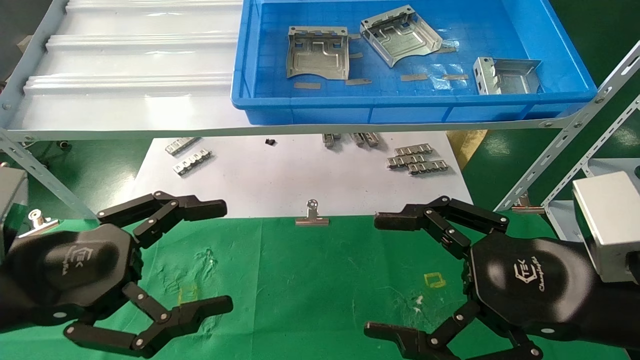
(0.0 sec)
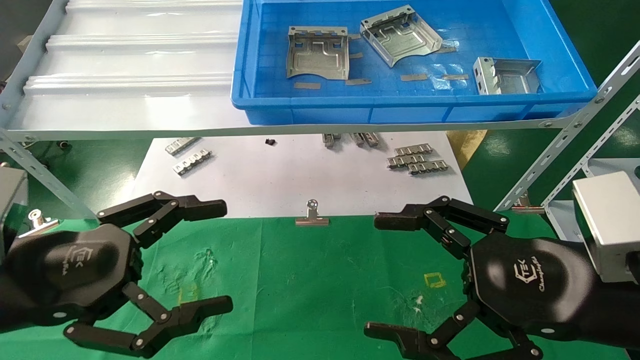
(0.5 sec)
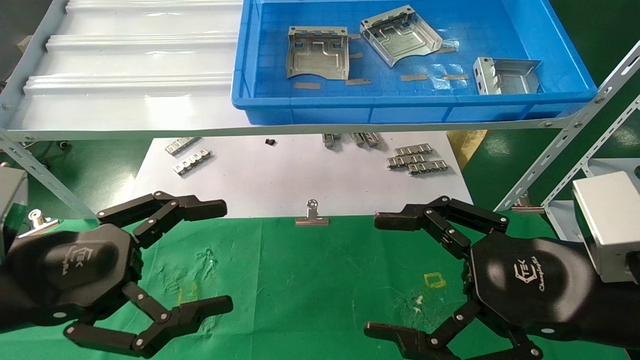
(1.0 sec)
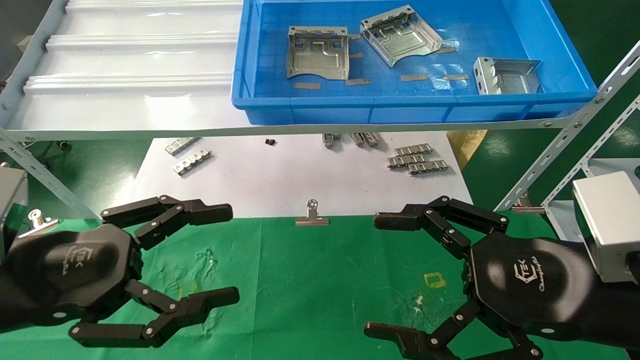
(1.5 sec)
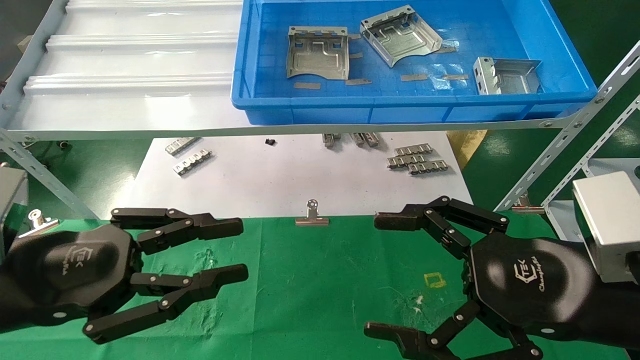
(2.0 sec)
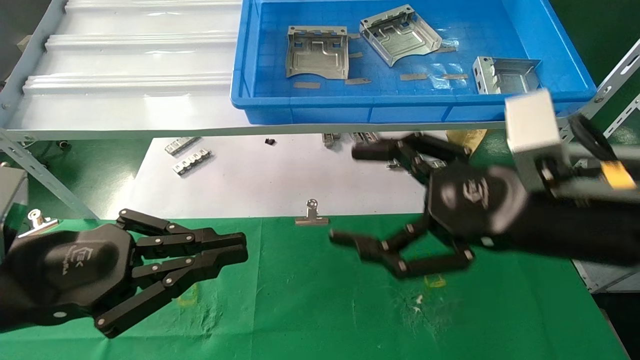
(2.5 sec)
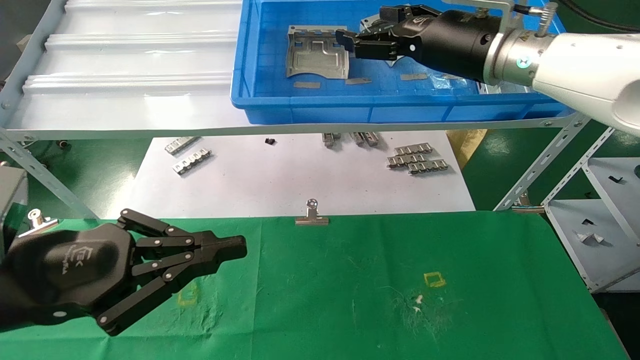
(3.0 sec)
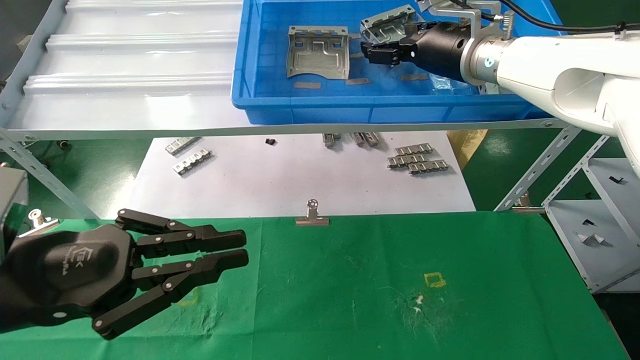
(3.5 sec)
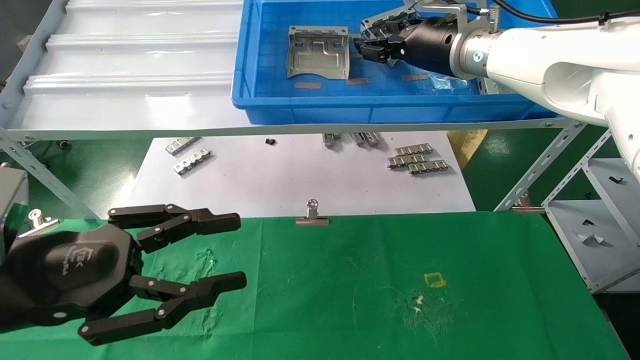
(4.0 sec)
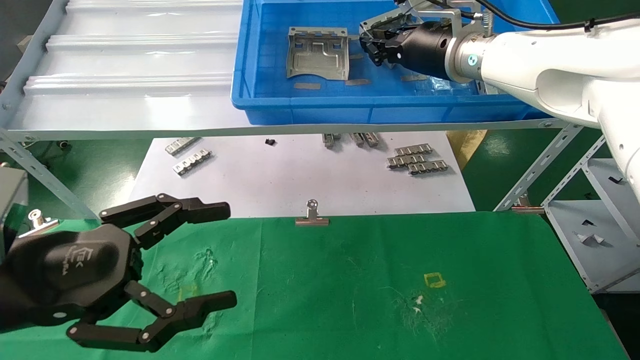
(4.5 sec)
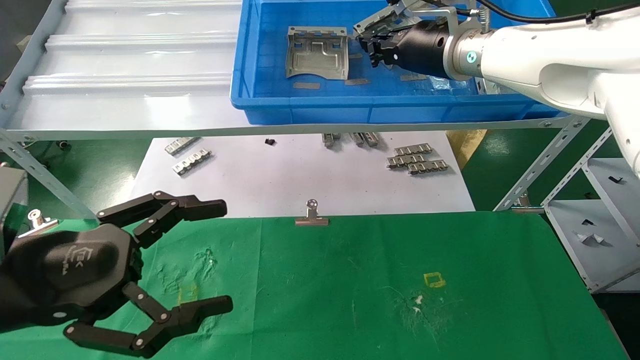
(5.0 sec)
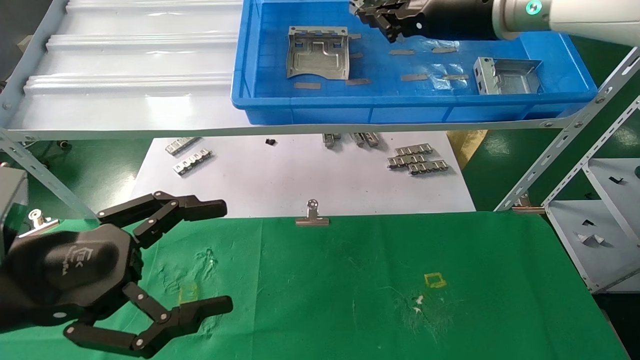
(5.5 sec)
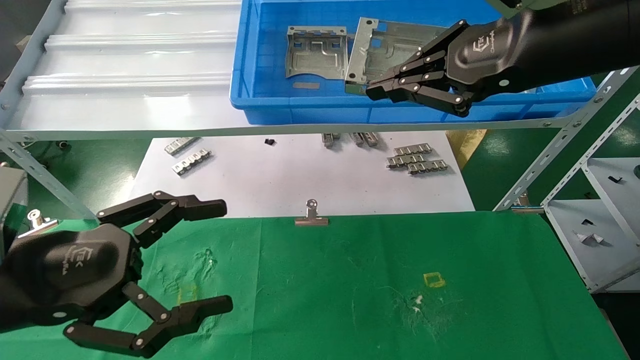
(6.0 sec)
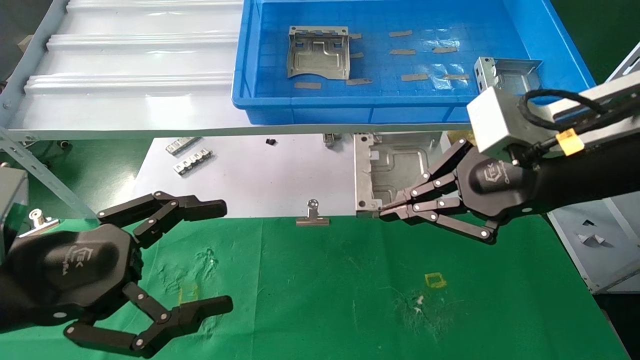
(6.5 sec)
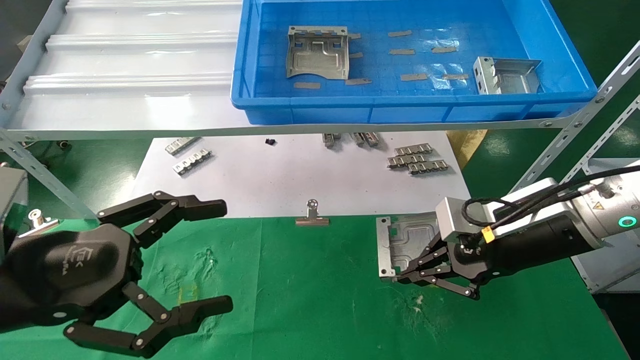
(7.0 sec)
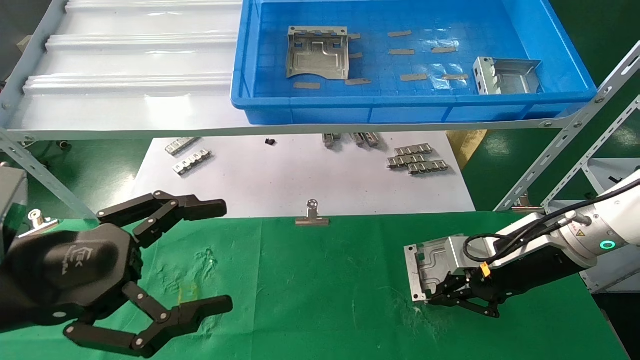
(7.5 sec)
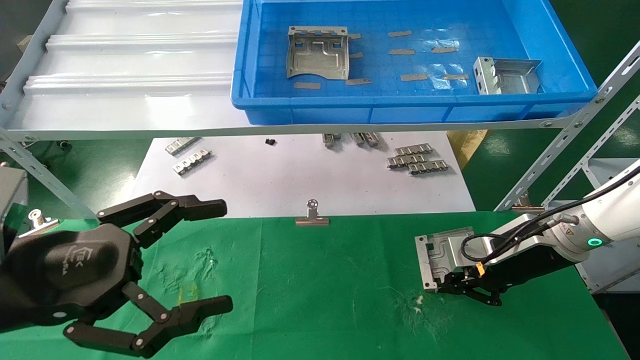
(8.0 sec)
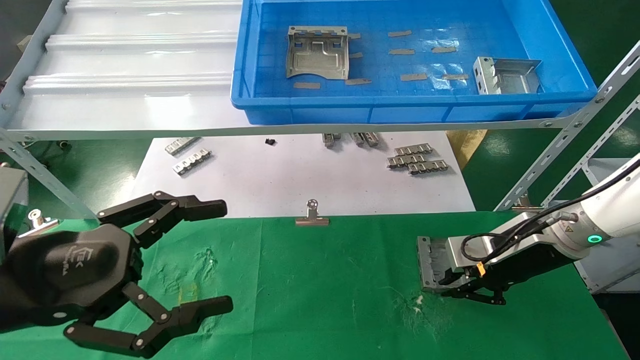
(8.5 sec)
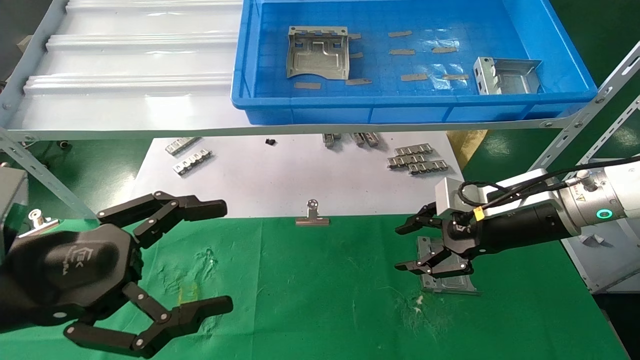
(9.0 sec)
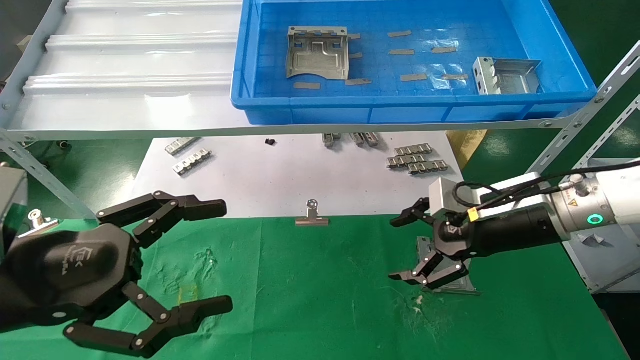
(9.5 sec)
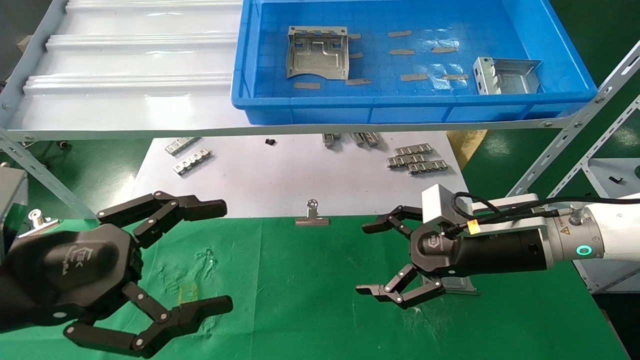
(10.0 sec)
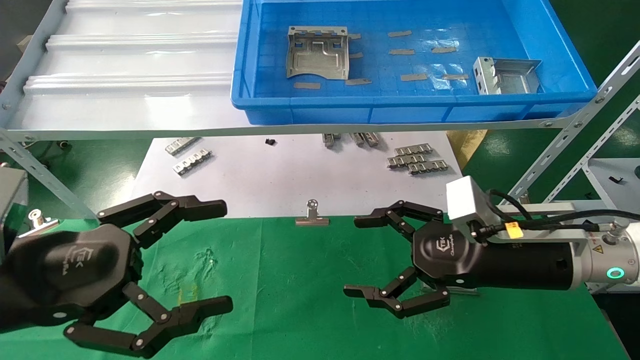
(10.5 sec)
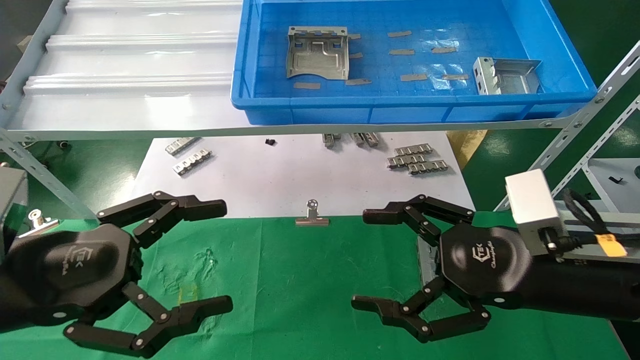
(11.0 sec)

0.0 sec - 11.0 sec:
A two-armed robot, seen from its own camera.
Task of the whole recording: use the mechanical arm to pick up the parts and place them on the table.
Step, 1.5 sec - 6.0 sec: Pick up the hard drive bracket from the feeding area.
Step, 6.5 sec - 8.5 sec: Place the hard drive bracket into the box.
0.0 sec - 2.0 sec: The left gripper closes.
2.0 sec - 3.5 sec: The right gripper travels forward and upward by roughly 30 cm. The left gripper closes.
3.5 sec - 5.5 sec: The left gripper opens up, while the right gripper heads backward, covering approximately 5 cm, and closes.
5.5 sec - 7.5 sec: The right gripper goes about 25 cm downward.
7.5 sec - 9.0 sec: The right gripper opens up.
9.0 sec - 11.0 sec: The right gripper heads backward, covering about 10 cm, and opens.

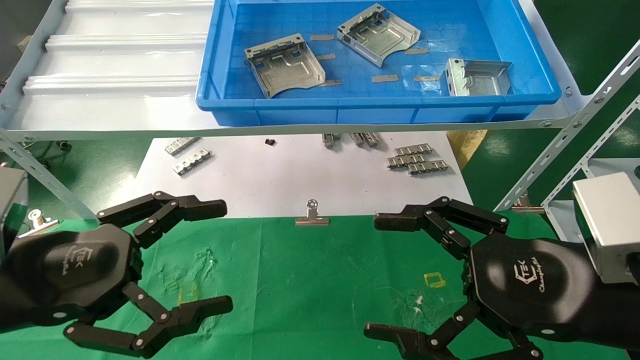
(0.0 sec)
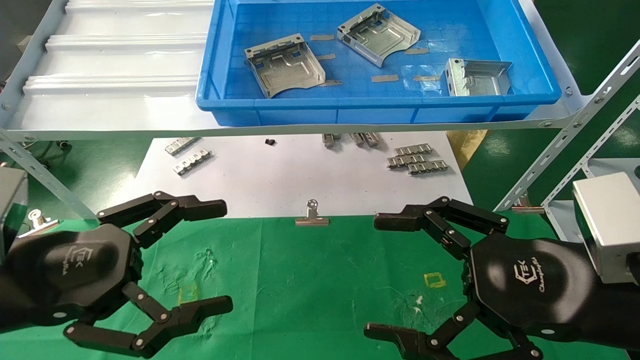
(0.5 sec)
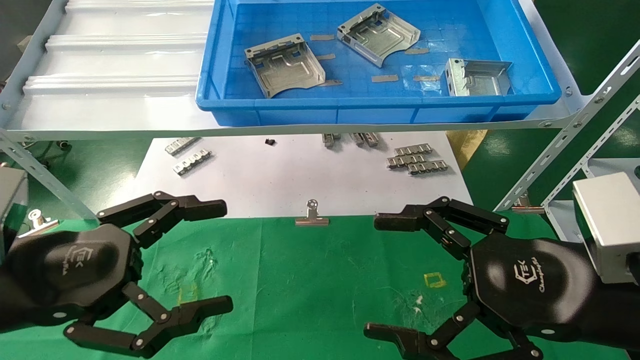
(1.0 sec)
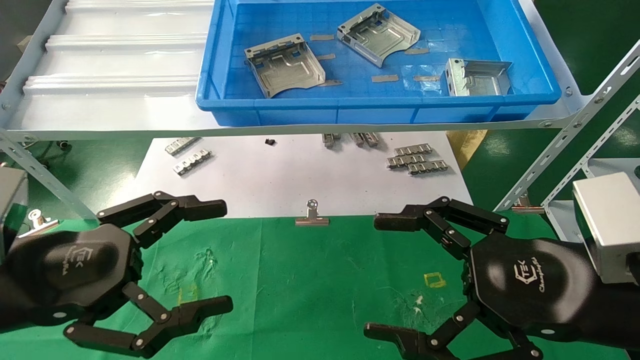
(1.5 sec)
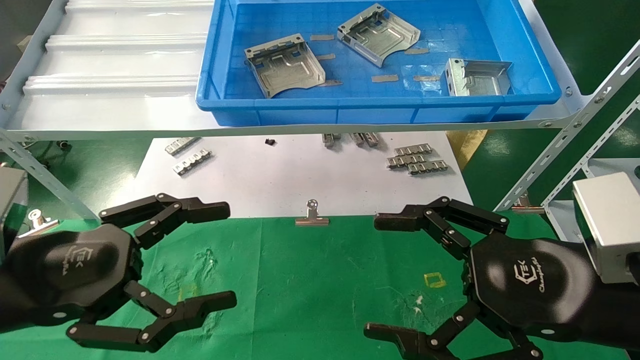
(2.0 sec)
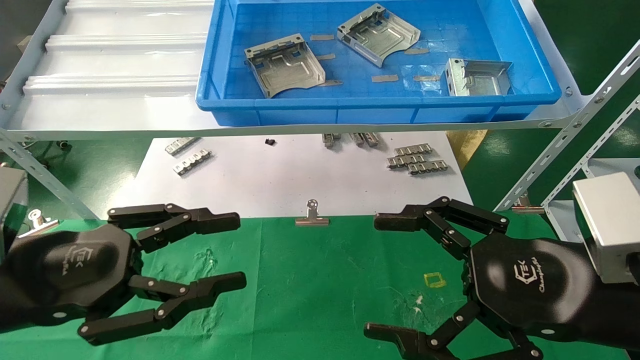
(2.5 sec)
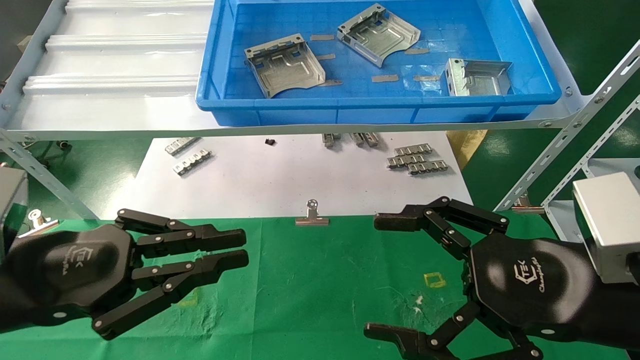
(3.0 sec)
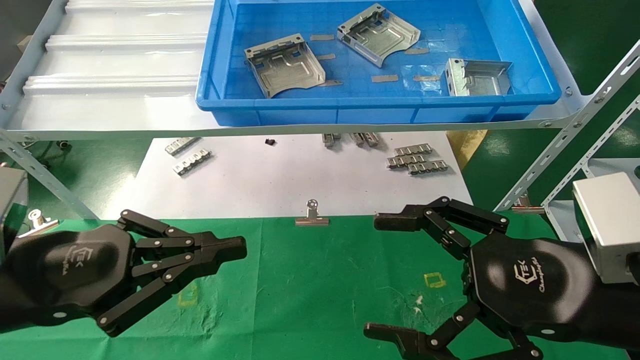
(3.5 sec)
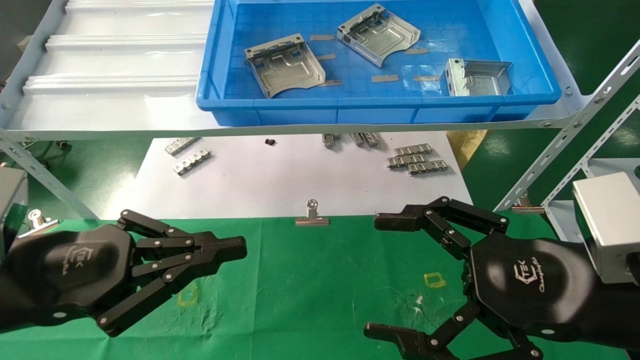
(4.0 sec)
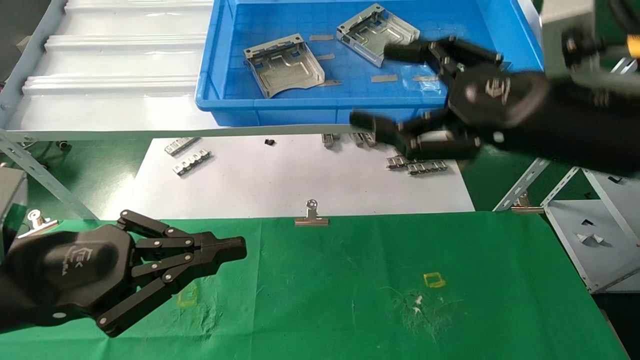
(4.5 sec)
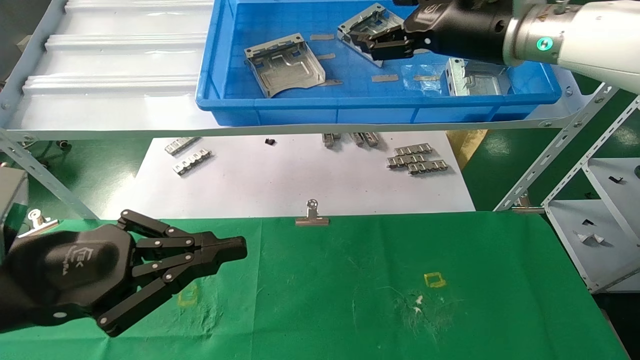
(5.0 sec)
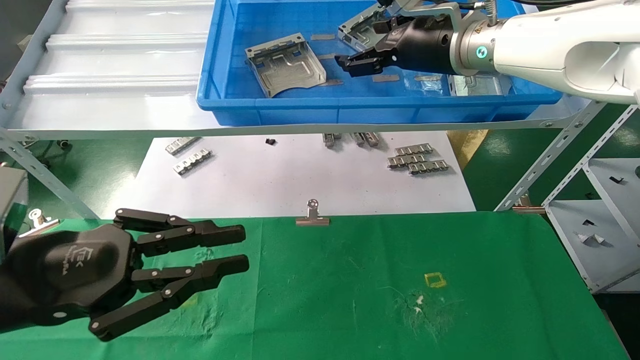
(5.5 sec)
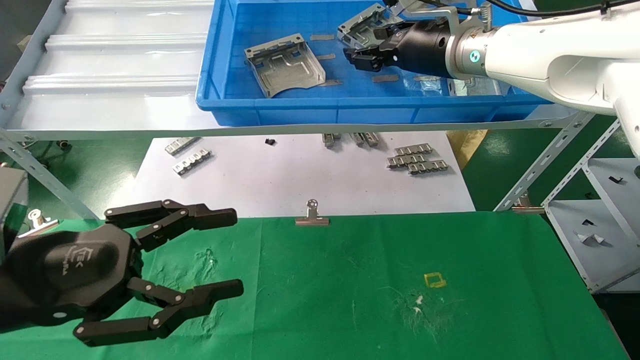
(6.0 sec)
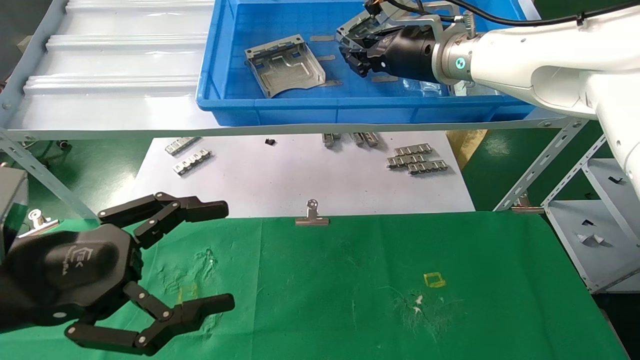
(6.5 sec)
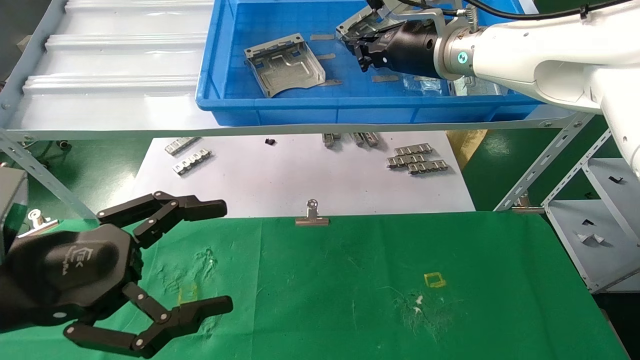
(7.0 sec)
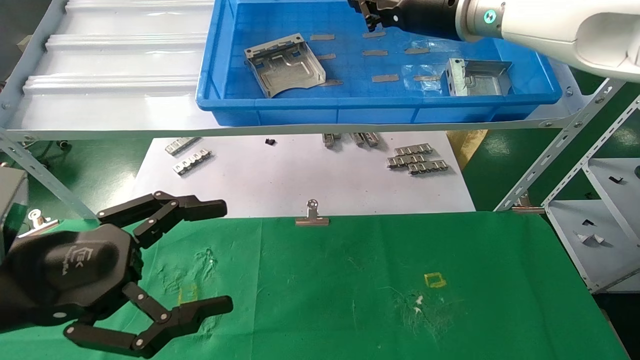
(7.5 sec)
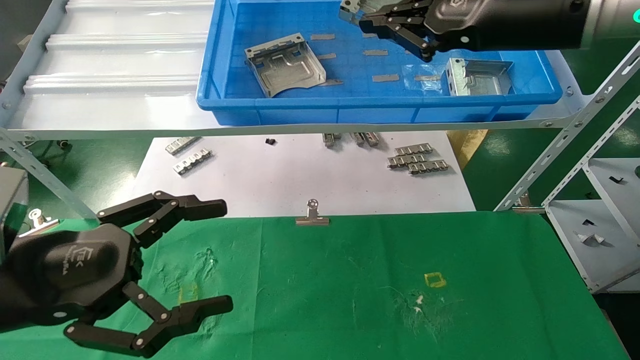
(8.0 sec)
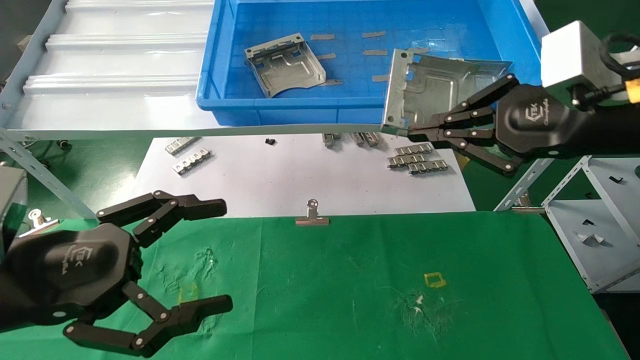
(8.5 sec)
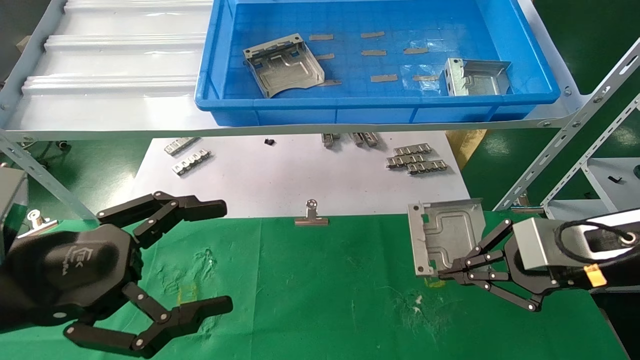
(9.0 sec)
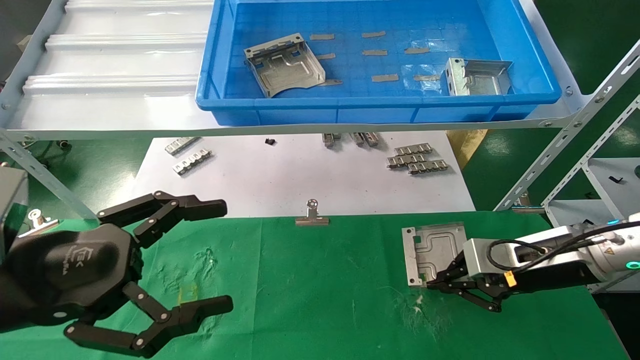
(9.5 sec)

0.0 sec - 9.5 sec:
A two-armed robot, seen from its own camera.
Task of the whole recording: use the mechanical arm to pick up the parts and place them on the table.
Step, 4.5 sec - 7.0 sec: Pick up the hard drive bracket from the feeding area.
0.0 sec - 2.0 sec: Both grippers stay about where they are.
2.0 sec - 4.0 sec: The left gripper closes its fingers.
4.0 sec - 5.5 sec: The right gripper moves forward and upward, about 30 cm.
5.5 sec - 7.5 sec: The left gripper opens. Meanwhile the right gripper closes.
7.5 sec - 9.5 sec: The right gripper shifts approximately 30 cm downward and to the right.
